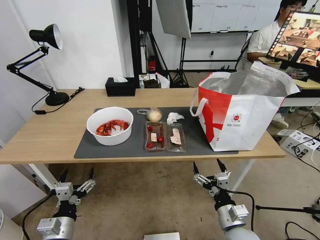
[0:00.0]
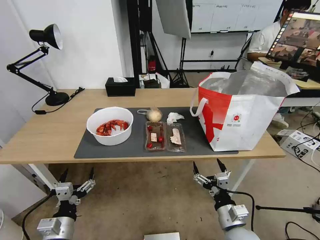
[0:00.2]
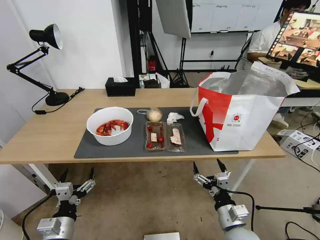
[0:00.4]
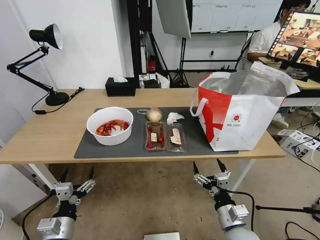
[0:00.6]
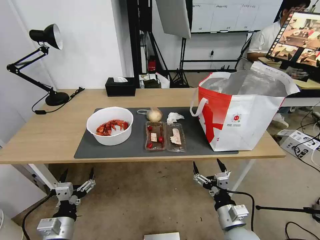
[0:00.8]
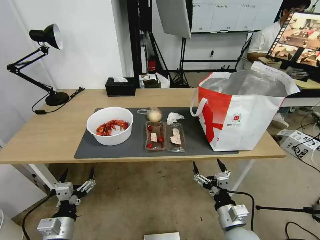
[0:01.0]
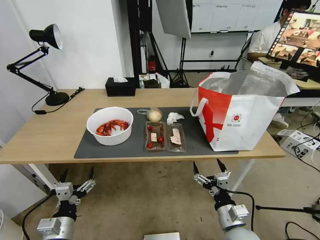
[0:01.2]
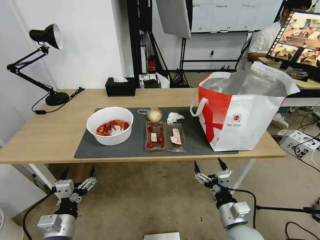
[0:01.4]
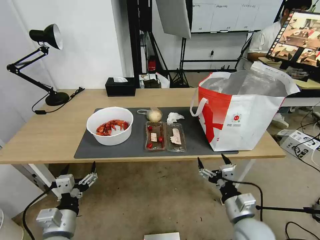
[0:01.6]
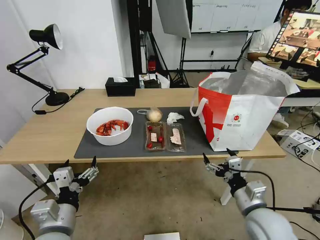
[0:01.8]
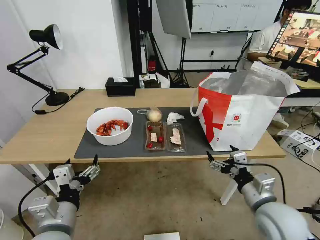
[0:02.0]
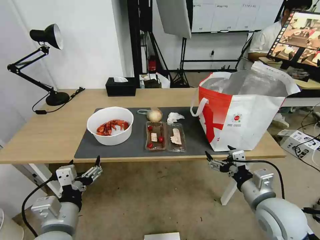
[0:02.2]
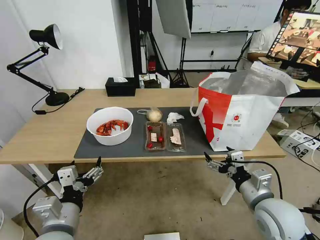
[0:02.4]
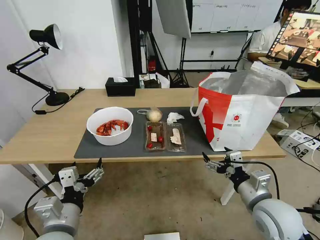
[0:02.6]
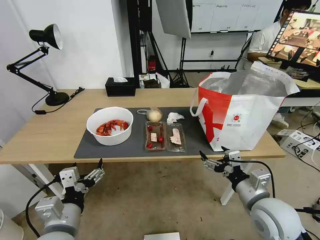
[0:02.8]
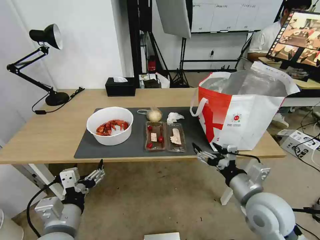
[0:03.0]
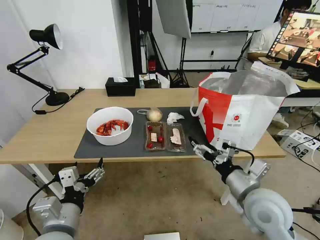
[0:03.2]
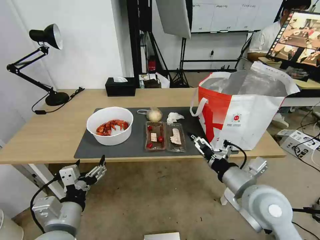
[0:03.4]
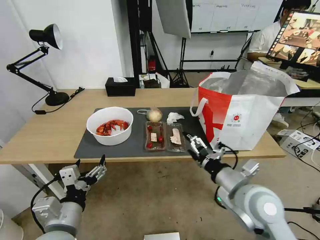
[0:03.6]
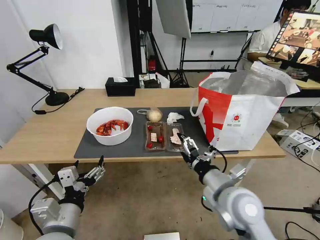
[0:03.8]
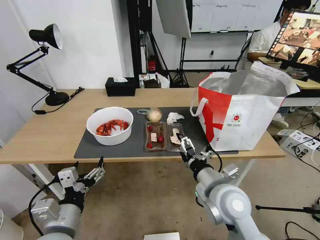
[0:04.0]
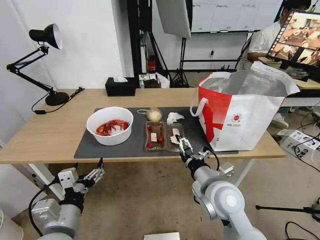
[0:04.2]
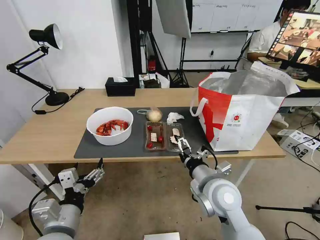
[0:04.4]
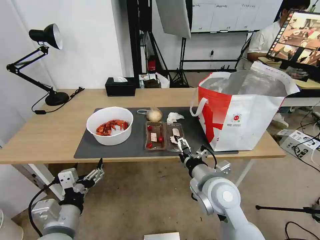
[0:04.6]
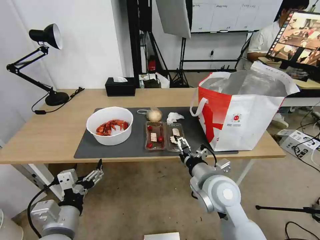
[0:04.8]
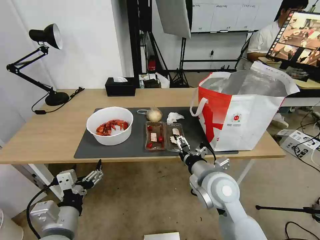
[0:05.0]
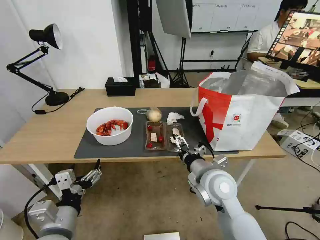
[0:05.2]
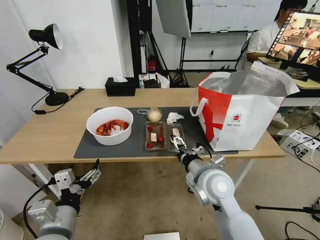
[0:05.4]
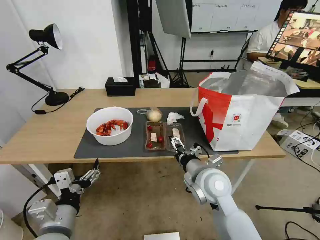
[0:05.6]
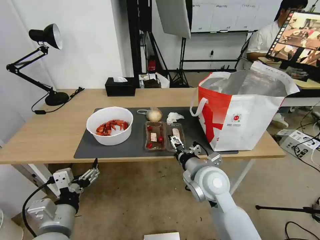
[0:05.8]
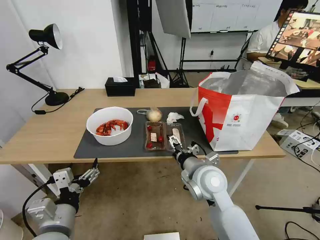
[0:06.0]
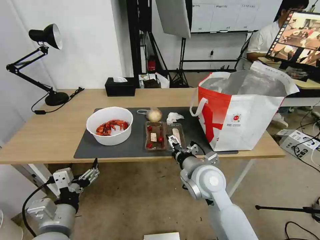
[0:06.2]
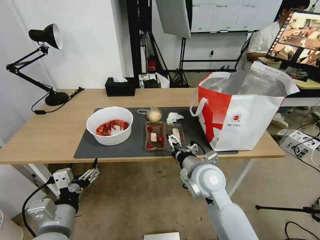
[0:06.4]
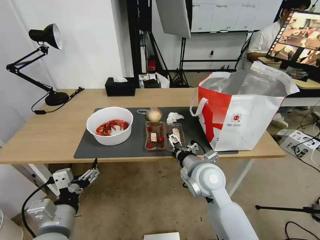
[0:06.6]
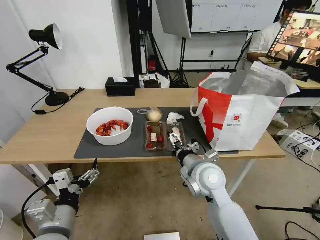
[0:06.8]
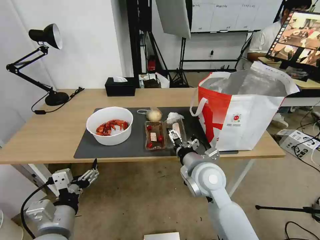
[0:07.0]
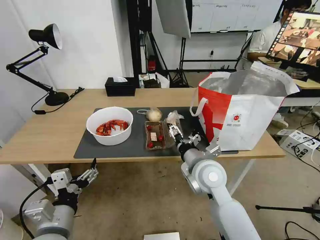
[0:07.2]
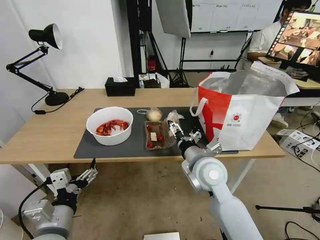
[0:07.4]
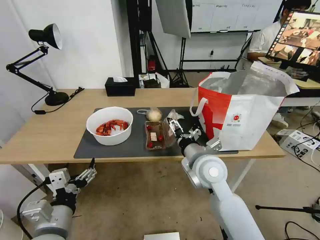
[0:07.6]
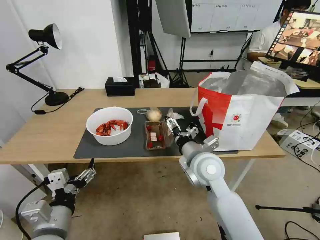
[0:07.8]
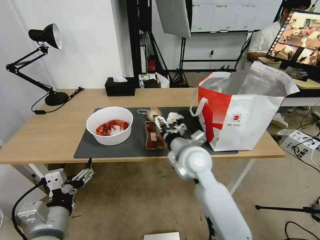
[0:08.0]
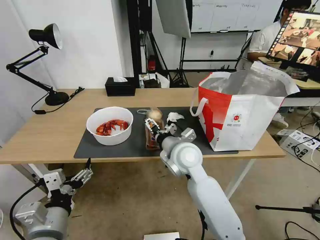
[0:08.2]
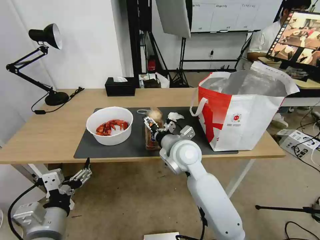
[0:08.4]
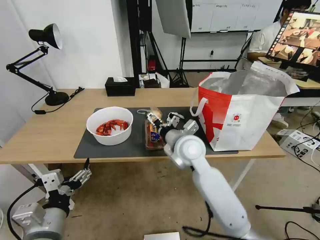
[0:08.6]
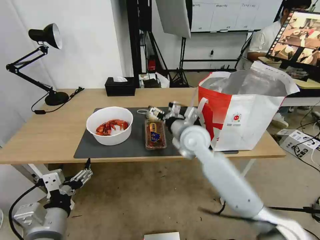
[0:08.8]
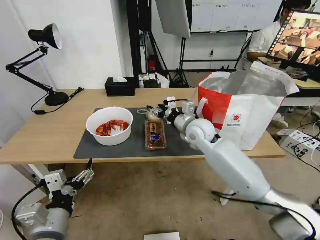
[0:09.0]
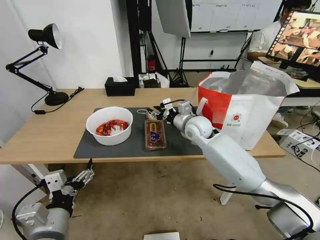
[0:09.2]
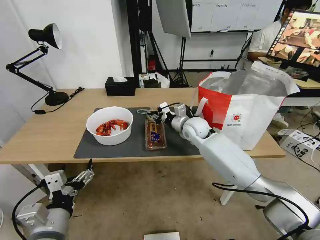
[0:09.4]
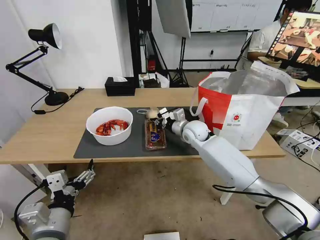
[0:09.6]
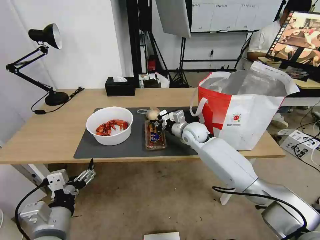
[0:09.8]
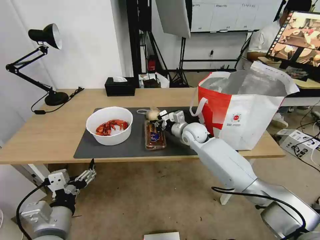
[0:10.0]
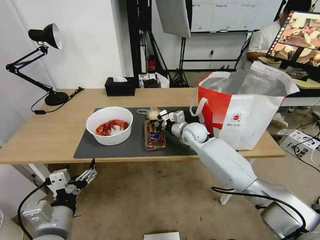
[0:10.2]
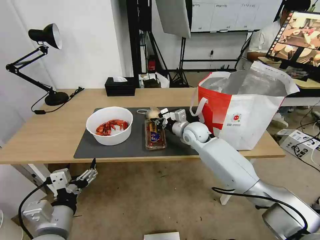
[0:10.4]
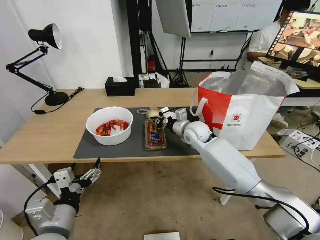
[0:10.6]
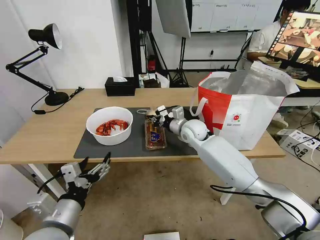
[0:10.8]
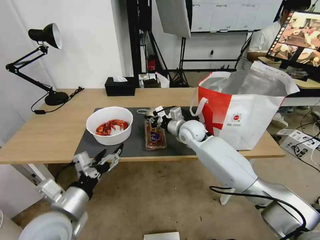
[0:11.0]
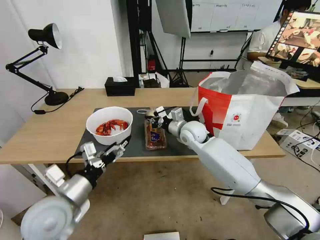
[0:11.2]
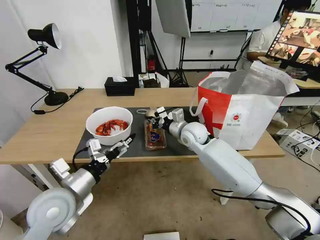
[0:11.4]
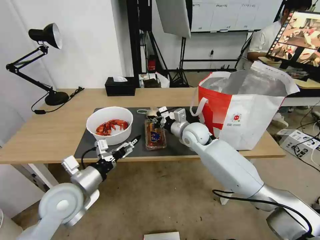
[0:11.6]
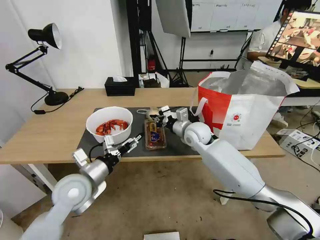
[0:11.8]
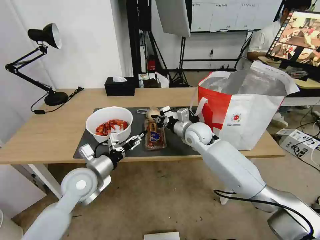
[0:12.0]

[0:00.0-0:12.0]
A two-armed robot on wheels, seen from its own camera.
Task of the whole recording: Pick up the trash from the table and place it into the takeout bag.
0:01.6 to 0:03.0: Both grippers travel together upward, roughly 5 cm.
0:03.0 to 0:04.4: The right gripper travels to the left by approximately 10 cm.
0:04.4 to 0:06.0: The grippers stay close to where they were, moving slightly.
0:06.0 to 0:07.6: The grippers stay close to where they were, moving slightly.
0:07.6 to 0:09.0: The right gripper travels forward by approximately 15 cm, and closes its fingers.
0:09.0 to 0:10.4: The right gripper heads downward, covering approximately 5 cm, and closes.
0:10.4 to 0:12.0: The left gripper is displaced forward by roughly 15 cm.

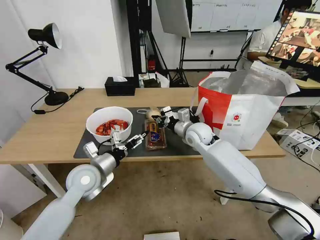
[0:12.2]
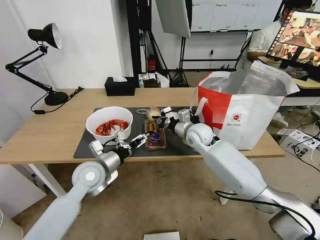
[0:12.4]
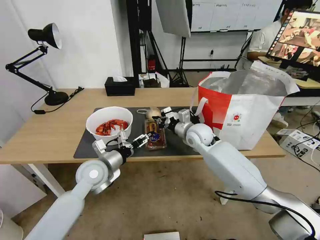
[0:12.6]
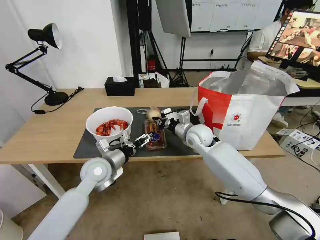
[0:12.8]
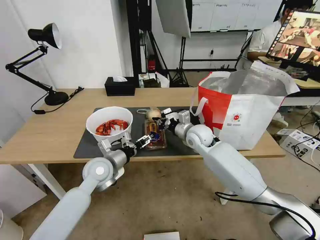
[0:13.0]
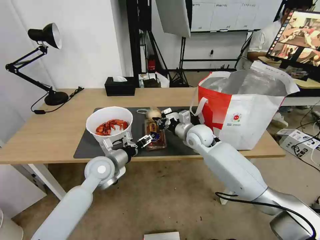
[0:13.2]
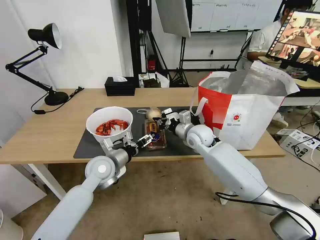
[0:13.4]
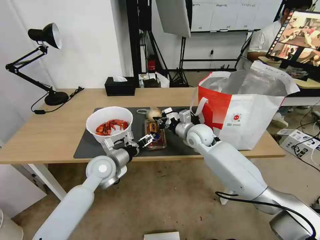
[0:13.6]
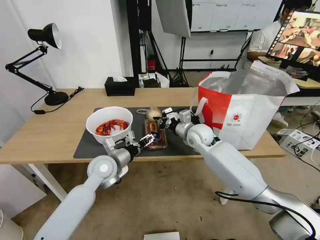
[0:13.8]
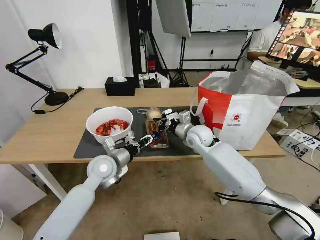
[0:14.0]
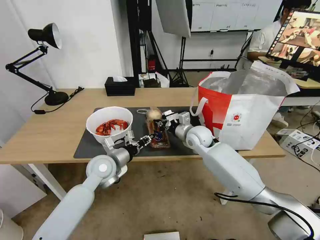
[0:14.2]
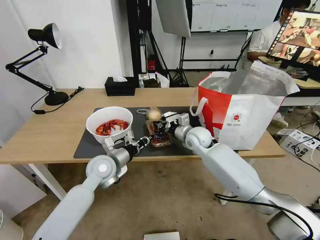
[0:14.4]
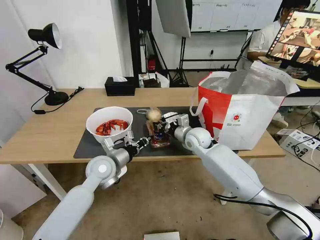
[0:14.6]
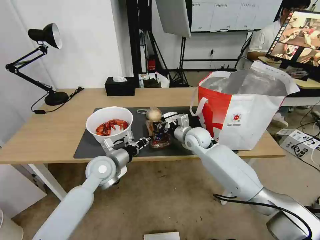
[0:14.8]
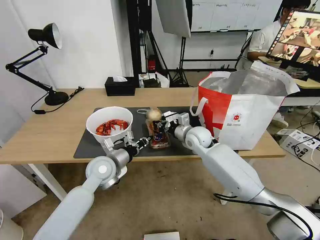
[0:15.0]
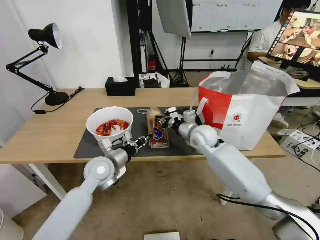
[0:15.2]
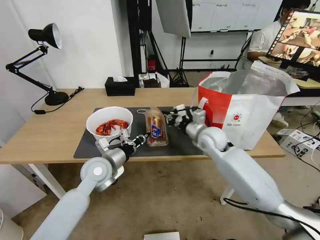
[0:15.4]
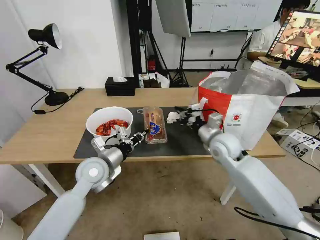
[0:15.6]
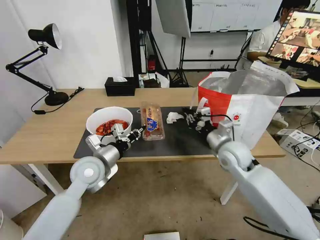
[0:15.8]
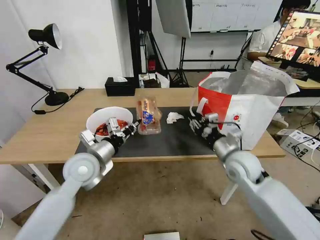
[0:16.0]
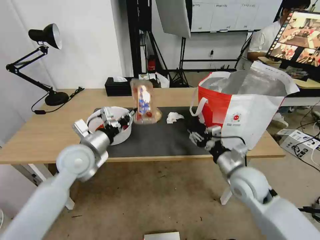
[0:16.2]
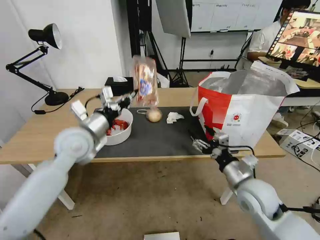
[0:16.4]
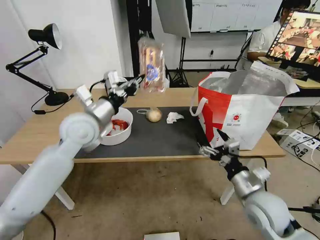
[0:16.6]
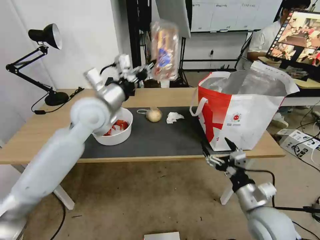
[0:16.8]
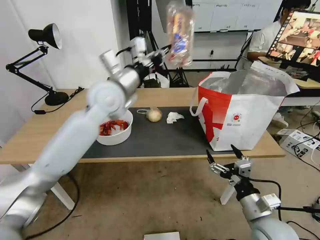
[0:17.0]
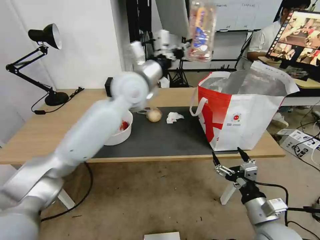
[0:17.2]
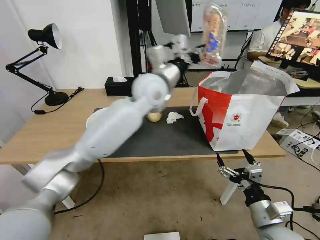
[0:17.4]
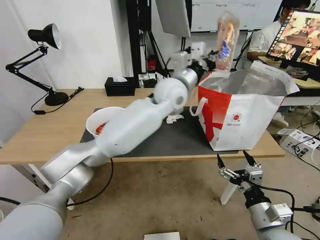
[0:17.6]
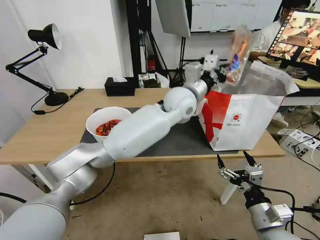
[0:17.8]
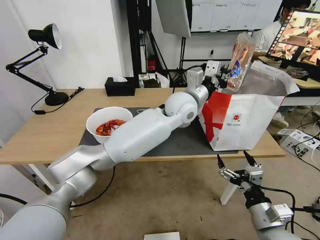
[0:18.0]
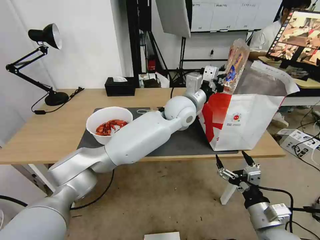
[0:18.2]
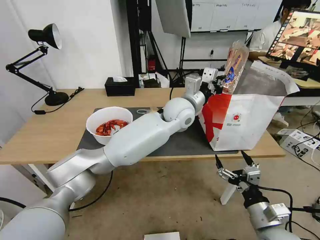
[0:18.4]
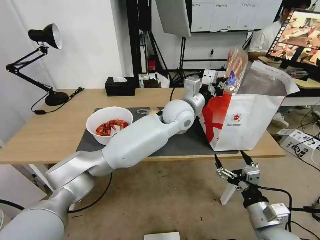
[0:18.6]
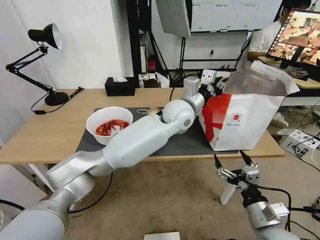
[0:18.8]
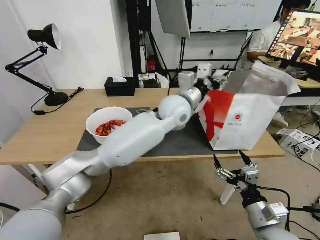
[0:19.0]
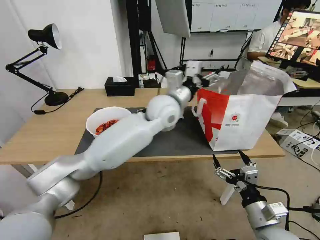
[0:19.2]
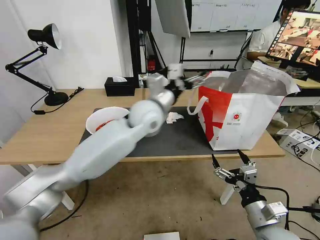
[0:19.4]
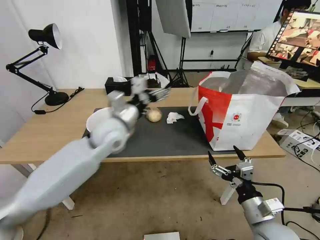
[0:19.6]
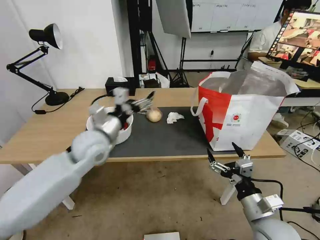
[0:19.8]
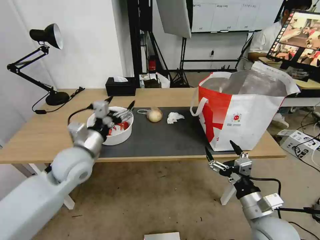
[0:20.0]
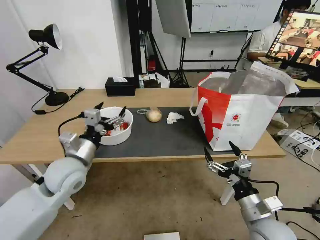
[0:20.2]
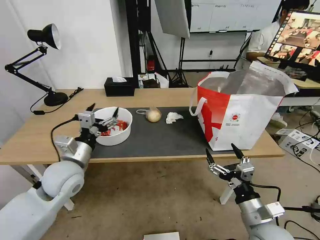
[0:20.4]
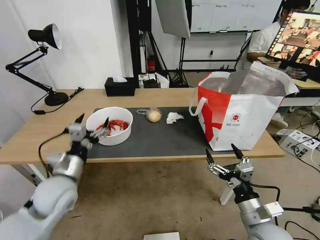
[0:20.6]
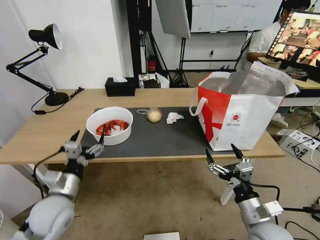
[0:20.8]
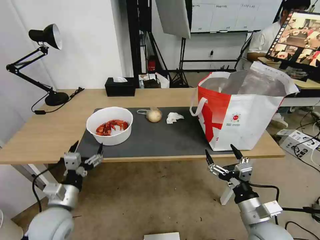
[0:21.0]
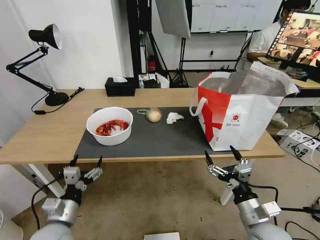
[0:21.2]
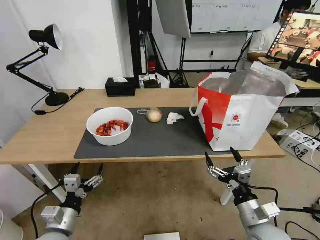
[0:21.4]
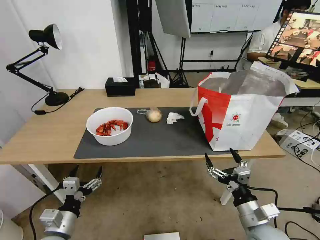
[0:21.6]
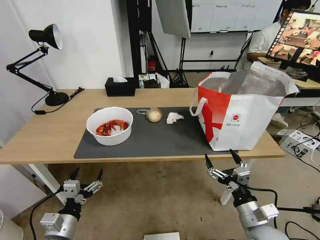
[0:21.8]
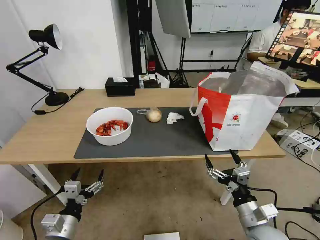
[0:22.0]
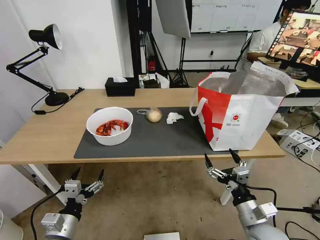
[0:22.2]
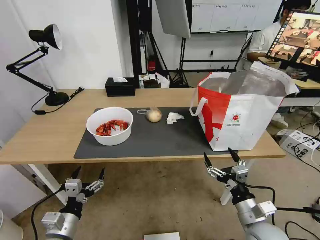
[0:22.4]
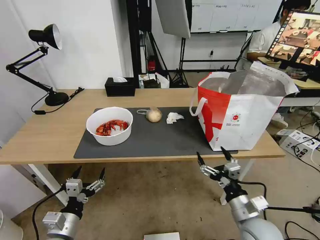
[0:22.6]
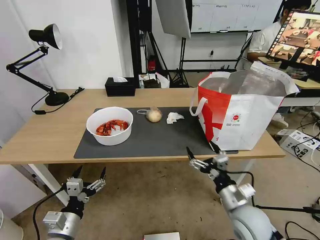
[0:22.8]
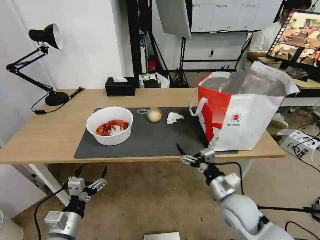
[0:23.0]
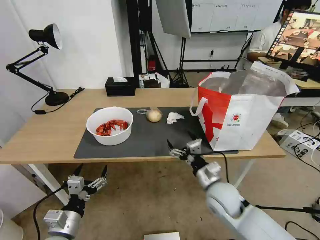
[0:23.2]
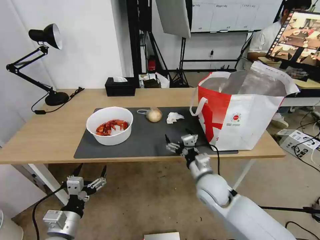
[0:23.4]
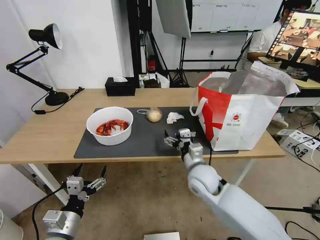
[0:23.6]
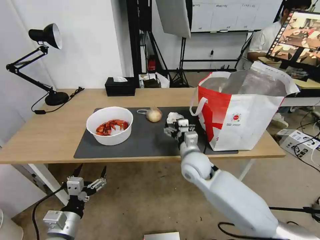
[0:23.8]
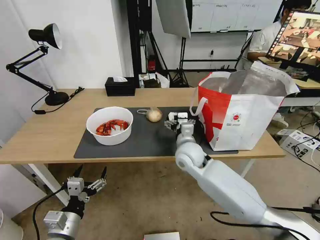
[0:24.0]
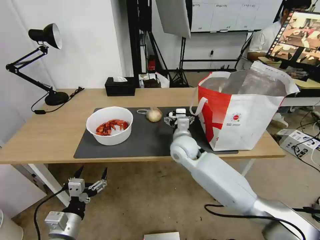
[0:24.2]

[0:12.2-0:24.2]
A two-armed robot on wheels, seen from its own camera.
Task of the whole recording: Pick up the trash from the table and place it into the takeout bag.
0:12.2 to 0:13.8: The left gripper changes place by roughly 5 cm.
0:13.8 to 0:15.2: The left gripper closes its fingers.
0:15.2 to 0:16.6: The left gripper travels upward by some 15 cm. The right gripper heads backward and to the right, covering some 25 cm, and opens.
0:16.6 to 0:18.2: The right gripper shifts roughly 10 cm backward, while the left gripper goes about 30 cm to the right.
0:18.2 to 0:19.8: The left gripper heads to the left and backward, covering some 25 cm, and opens up.
0:19.8 to 0:21.2: The left gripper travels backward, downward and to the left by some 30 cm.
0:21.2 to 0:22.6: The grippers make only small movements.
0:22.6 to 0:24.2: The right gripper moves forward and to the left, some 30 cm.
